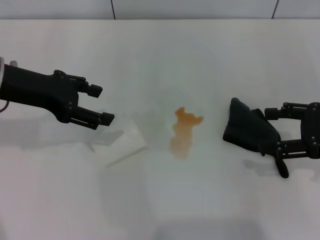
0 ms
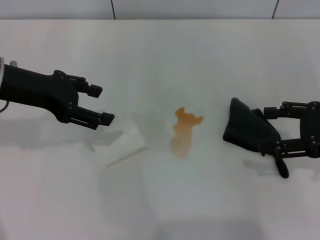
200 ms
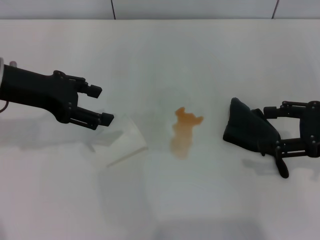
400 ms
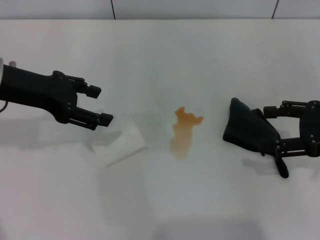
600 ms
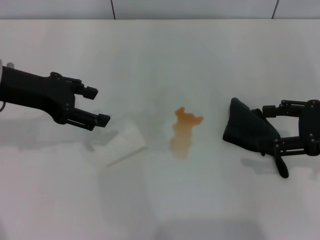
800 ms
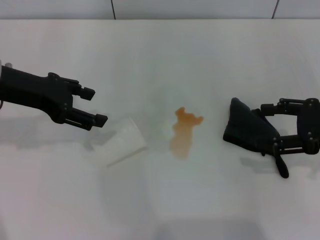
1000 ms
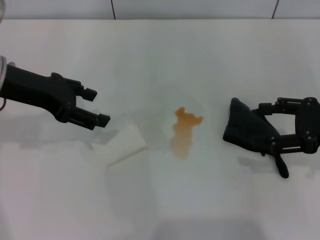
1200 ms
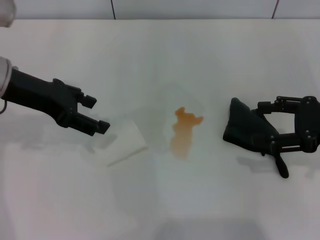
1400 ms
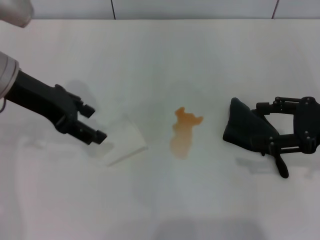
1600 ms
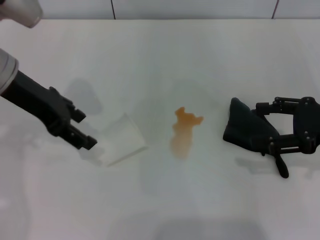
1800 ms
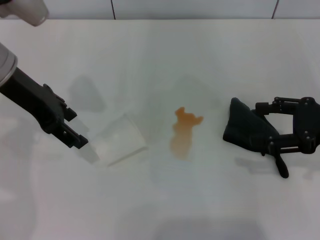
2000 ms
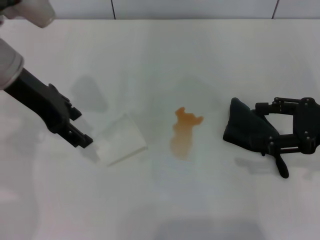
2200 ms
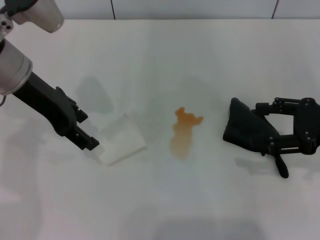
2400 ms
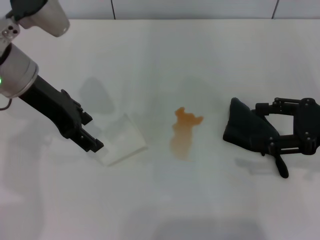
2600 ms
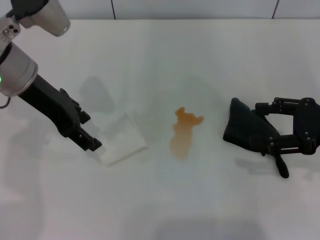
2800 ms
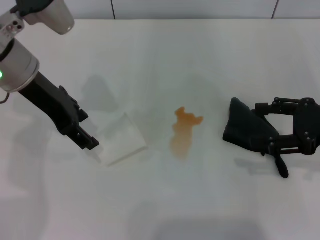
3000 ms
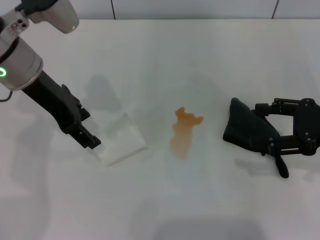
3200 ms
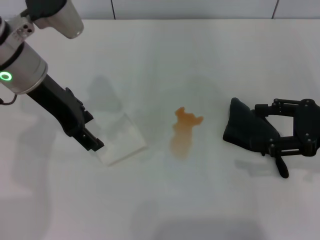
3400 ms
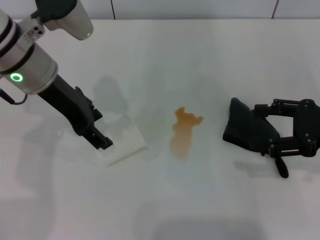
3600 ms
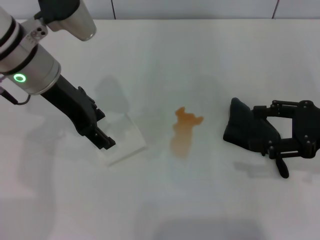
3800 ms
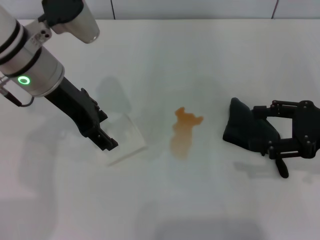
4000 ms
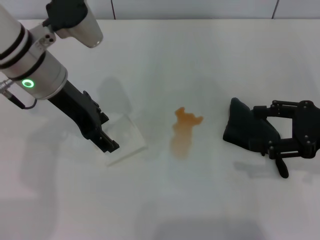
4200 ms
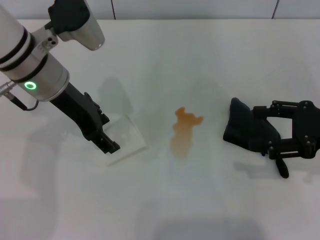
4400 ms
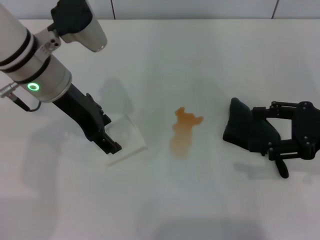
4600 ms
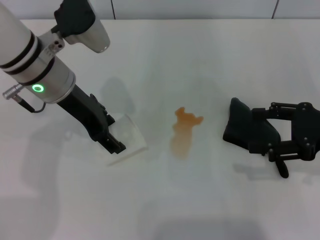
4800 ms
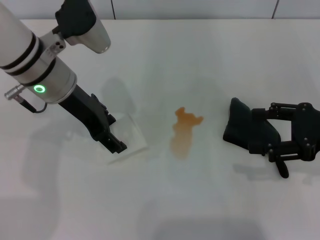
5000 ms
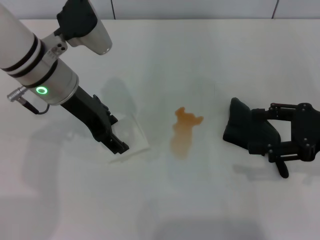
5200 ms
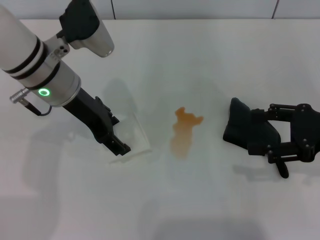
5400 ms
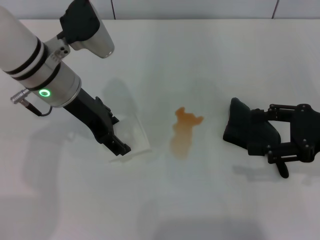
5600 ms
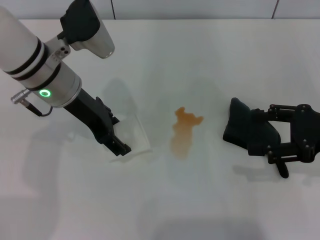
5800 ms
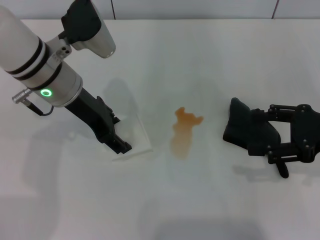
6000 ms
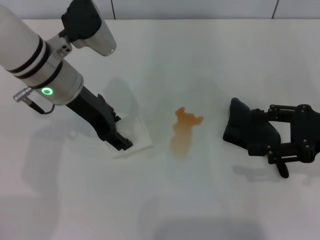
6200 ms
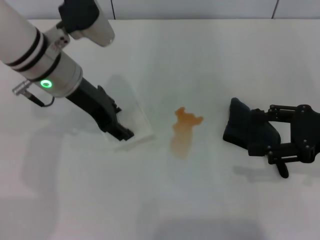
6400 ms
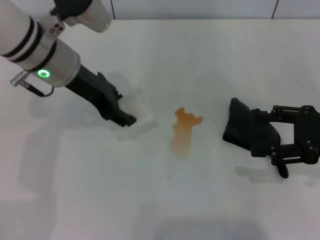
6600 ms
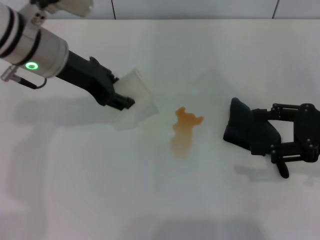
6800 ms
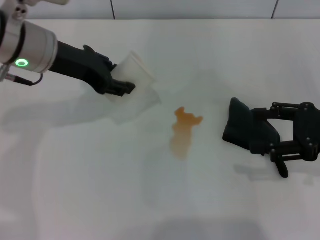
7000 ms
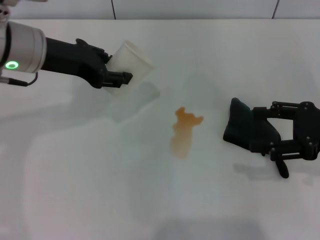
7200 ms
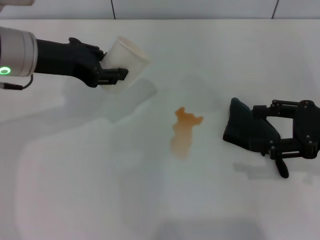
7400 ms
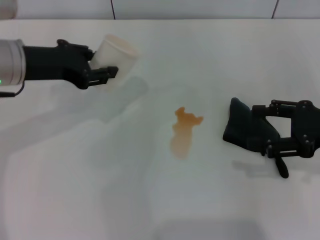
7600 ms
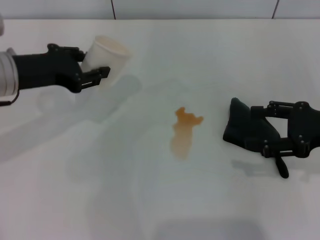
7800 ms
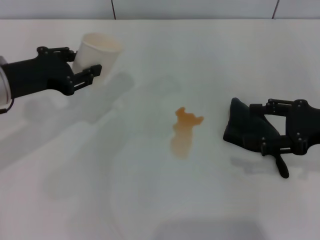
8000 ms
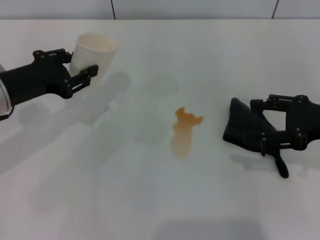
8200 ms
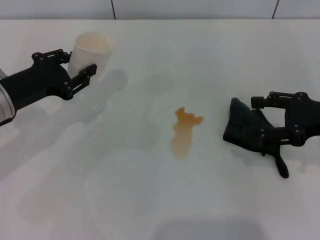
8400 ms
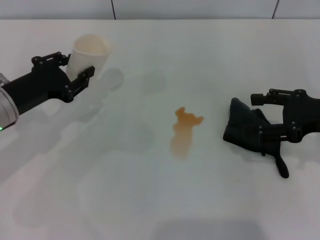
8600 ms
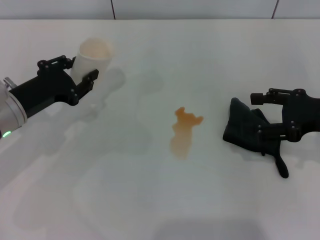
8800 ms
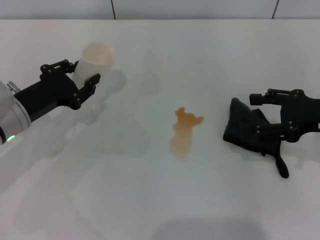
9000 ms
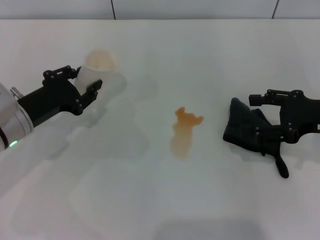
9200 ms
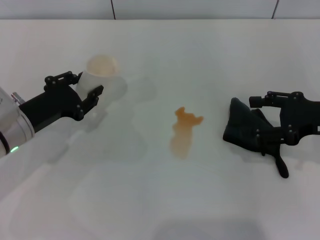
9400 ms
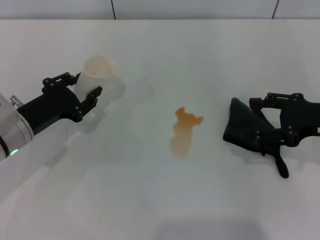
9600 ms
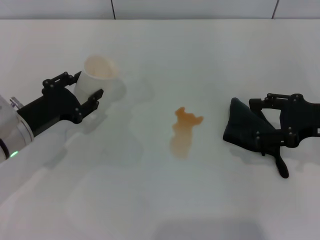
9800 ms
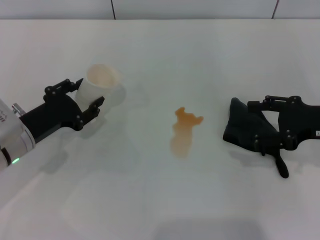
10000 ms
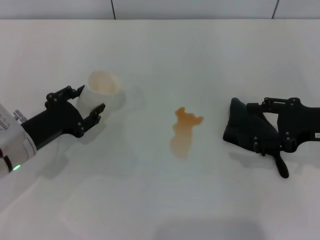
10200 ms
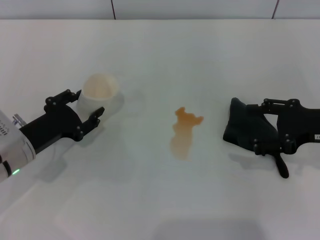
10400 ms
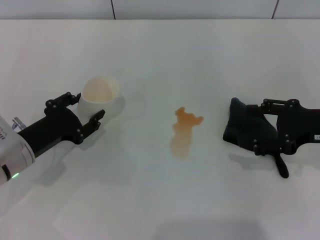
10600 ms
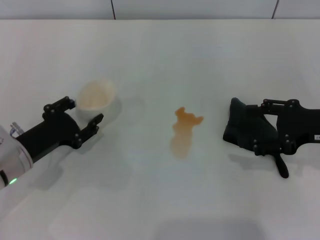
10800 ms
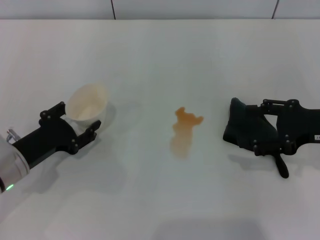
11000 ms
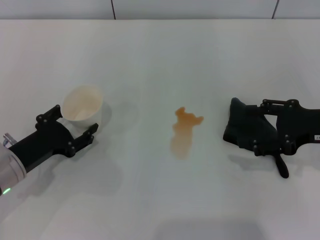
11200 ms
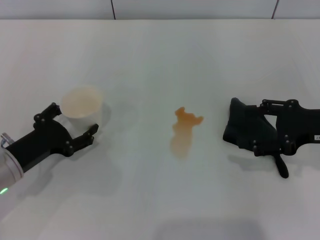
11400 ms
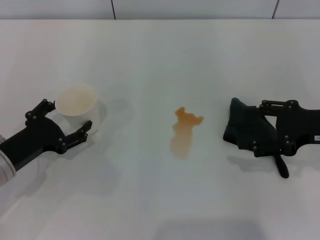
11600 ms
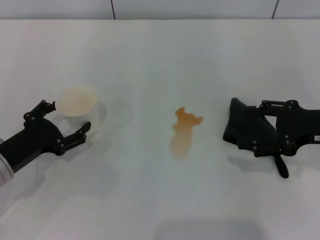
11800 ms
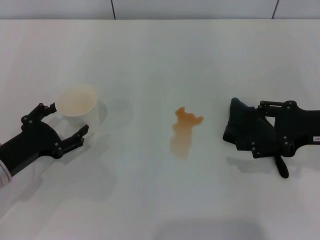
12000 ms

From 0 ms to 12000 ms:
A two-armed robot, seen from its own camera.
Step, from 0 ms to 6000 ms: Grasp the paper cup with the left gripper.
From 0 ms to 1600 ms: The grippers make only small movements.
From 1600 ms to 3000 ms: The grippers make only small movements.
From 3000 ms to 6000 ms: The grippers make only small movements.
From 6000 ms to 7600 ms: The left gripper goes roughly 5 cm to the left, and closes.
From 7600 ms to 9000 ms: The left gripper moves downward, some 10 cm.
From 9000 ms to 10400 ms: The left gripper moves roughly 5 cm, and opens up.
From 10400 ms to 12000 ms: The left gripper opens.

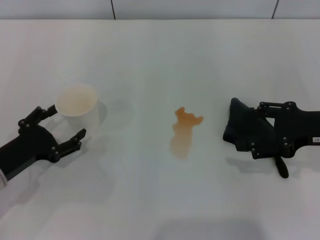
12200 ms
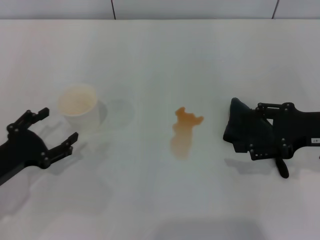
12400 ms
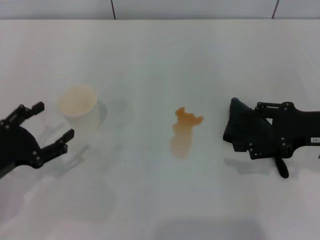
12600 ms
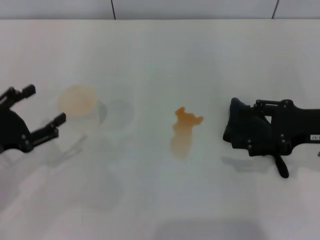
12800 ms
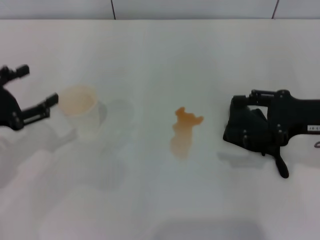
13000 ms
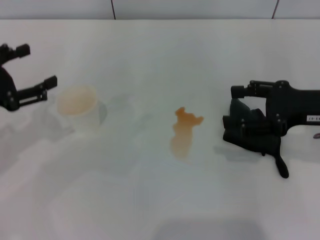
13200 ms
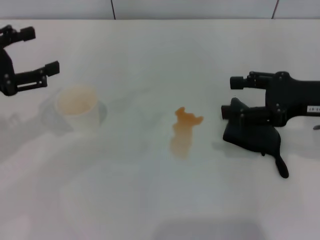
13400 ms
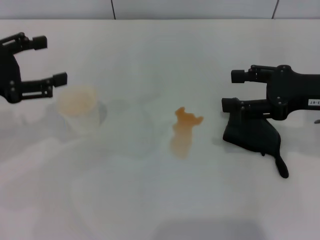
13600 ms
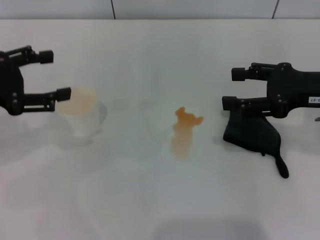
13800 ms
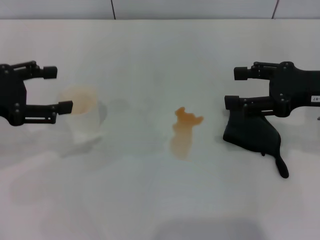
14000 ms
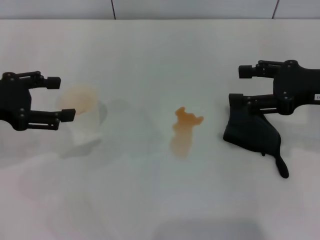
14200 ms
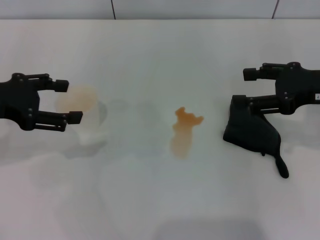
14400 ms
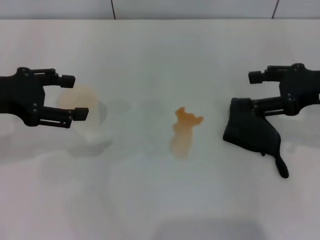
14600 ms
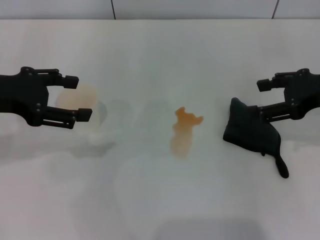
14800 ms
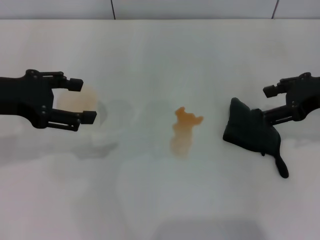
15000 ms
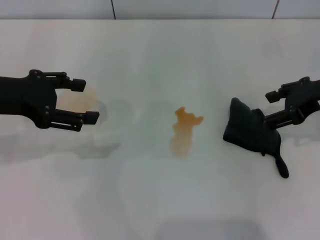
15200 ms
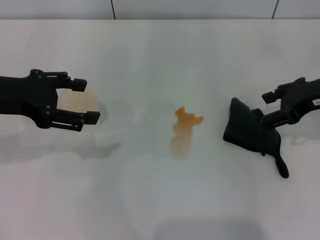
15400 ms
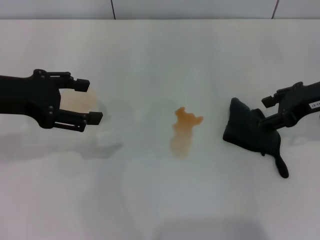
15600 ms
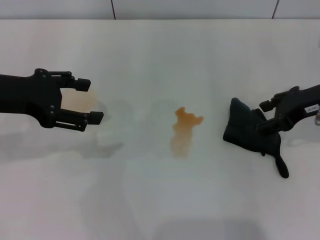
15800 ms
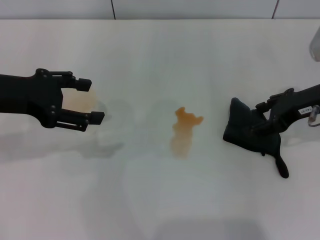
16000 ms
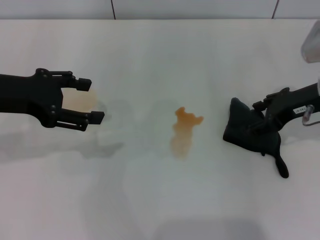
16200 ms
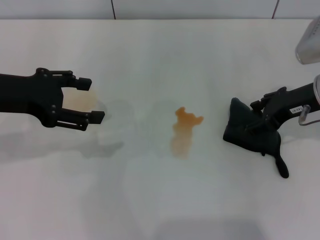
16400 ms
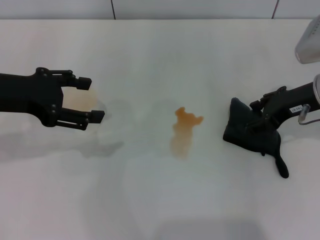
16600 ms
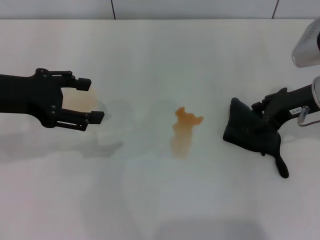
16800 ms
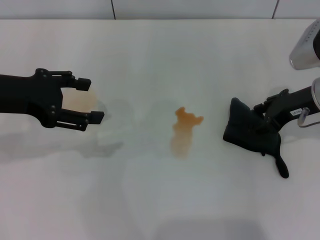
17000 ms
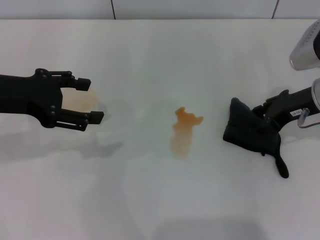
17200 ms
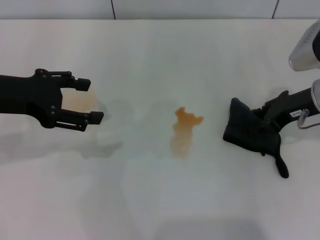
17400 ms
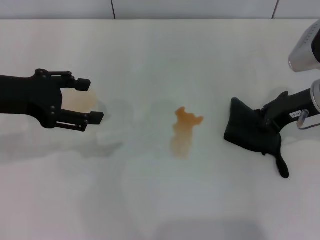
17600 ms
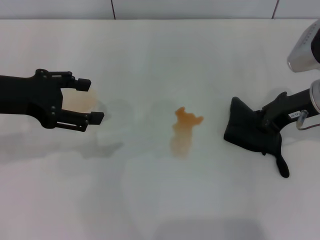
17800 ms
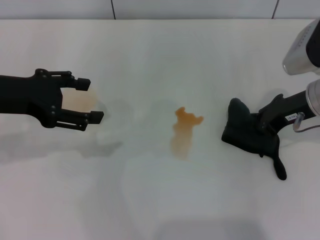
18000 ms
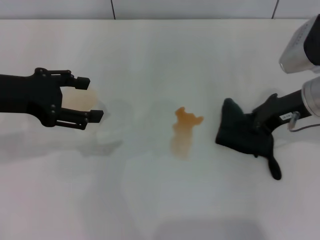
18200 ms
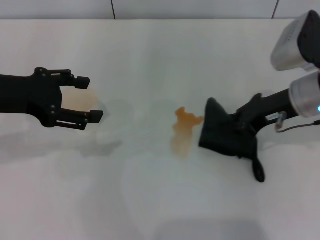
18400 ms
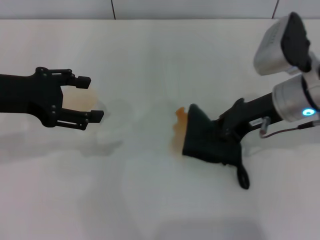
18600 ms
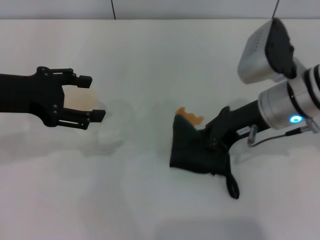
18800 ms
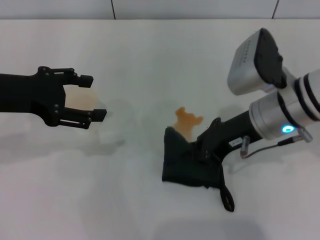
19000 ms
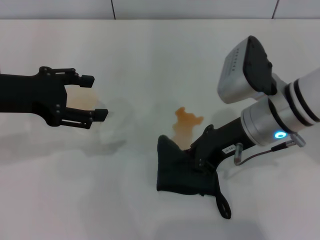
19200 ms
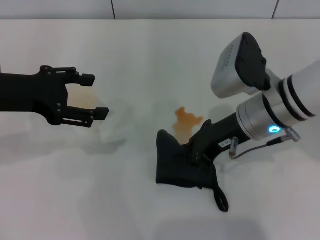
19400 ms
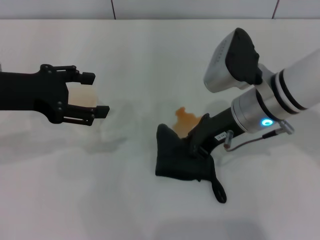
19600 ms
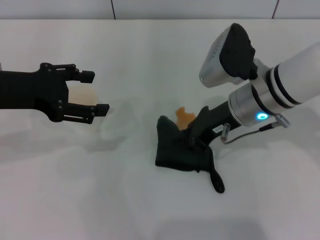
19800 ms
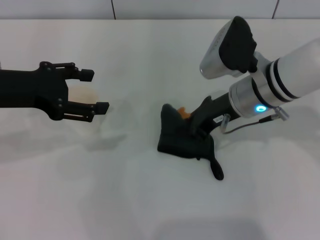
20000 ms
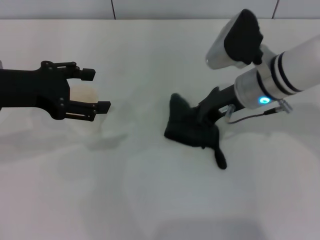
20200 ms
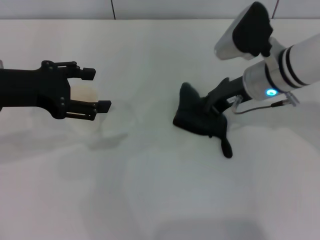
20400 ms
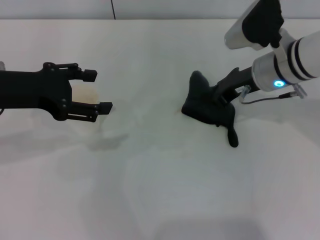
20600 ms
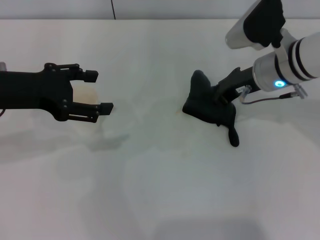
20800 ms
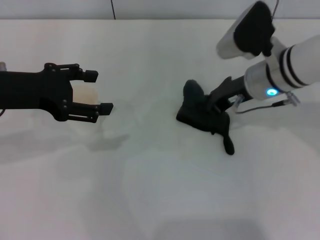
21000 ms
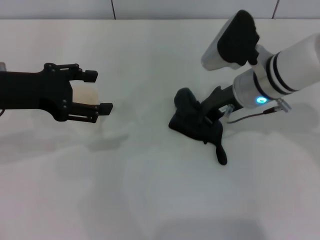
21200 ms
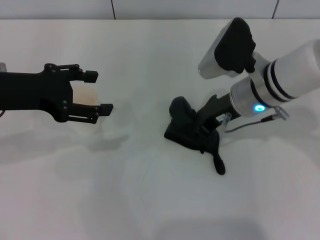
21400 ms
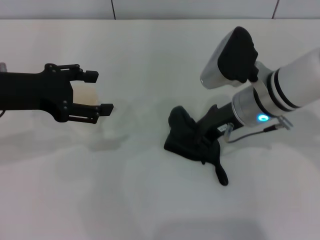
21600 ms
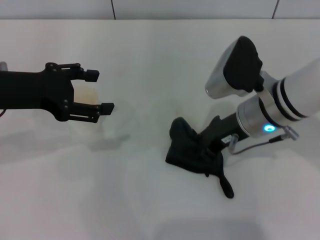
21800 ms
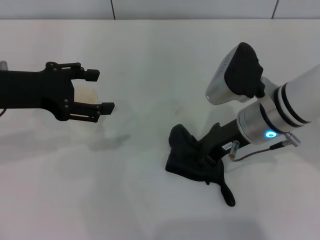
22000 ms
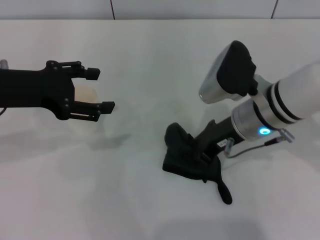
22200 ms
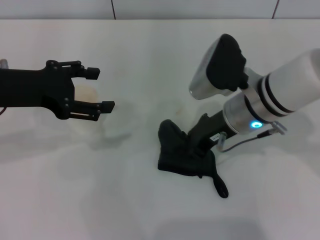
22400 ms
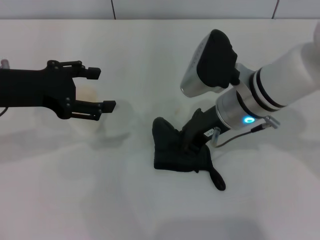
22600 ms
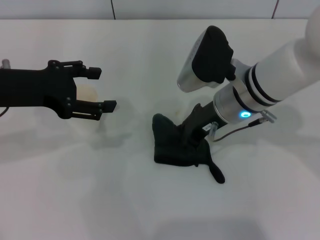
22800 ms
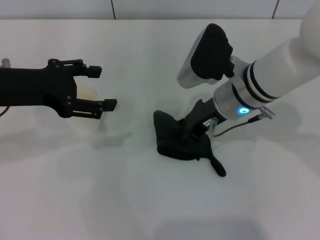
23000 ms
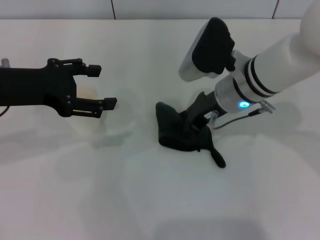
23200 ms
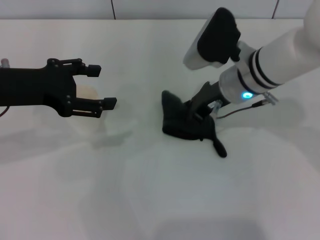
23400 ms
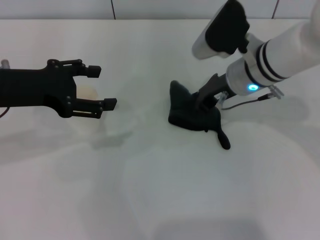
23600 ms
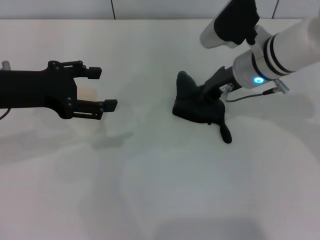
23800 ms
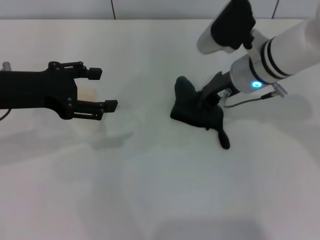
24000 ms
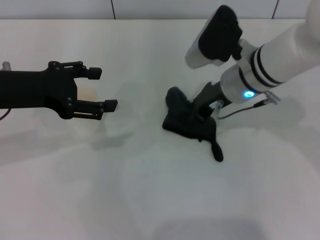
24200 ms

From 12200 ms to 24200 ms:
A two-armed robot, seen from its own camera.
Step, from 12600 ms to 18000 ms: Grasp the rag with the right gripper.
From 12200 ms to 13800 ms: The left gripper goes roughly 15 cm upward. Meanwhile the right gripper moves about 5 cm.
From 15200 ms to 16600 ms: The right gripper shifts by about 5 cm.
From 16600 ms to 18200 ms: The right gripper closes up.
From 18200 ms to 19800 ms: The right gripper moves to the left, approximately 10 cm.
From 21200 ms to 22600 ms: The grippers move only a little.
